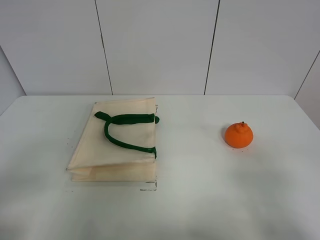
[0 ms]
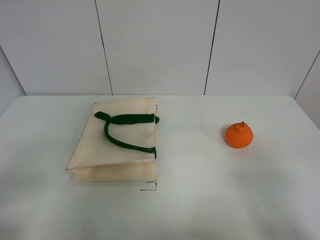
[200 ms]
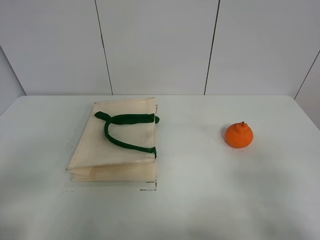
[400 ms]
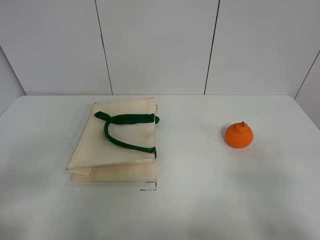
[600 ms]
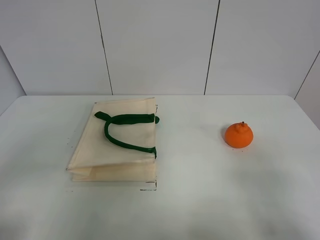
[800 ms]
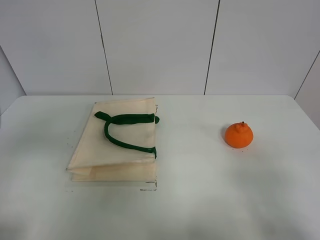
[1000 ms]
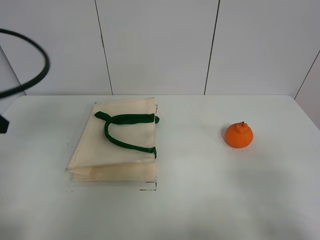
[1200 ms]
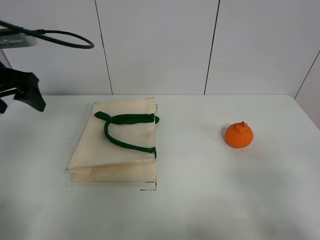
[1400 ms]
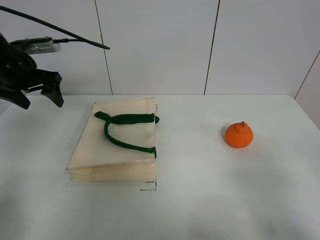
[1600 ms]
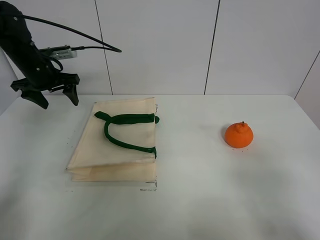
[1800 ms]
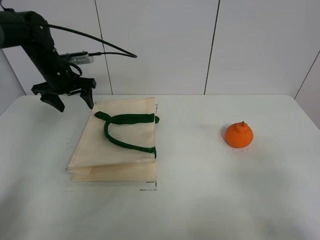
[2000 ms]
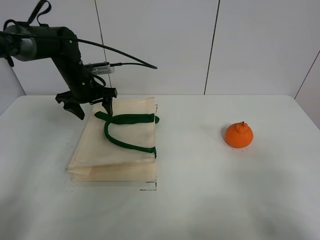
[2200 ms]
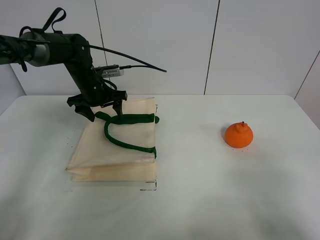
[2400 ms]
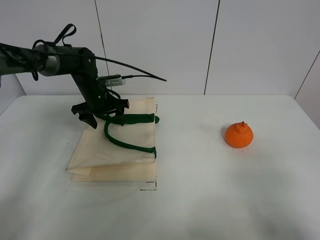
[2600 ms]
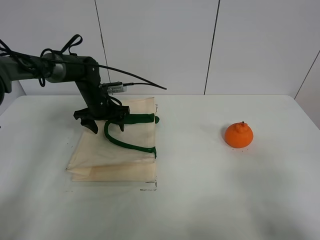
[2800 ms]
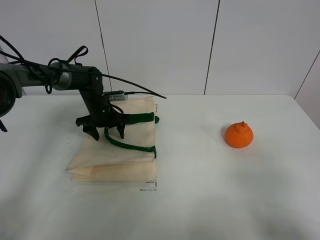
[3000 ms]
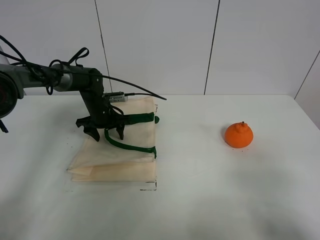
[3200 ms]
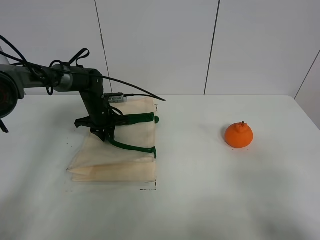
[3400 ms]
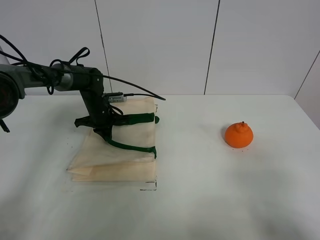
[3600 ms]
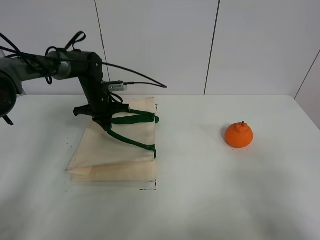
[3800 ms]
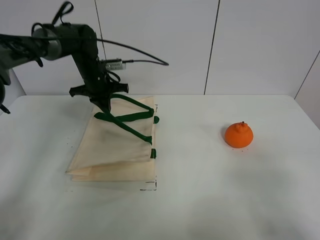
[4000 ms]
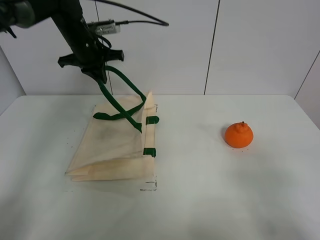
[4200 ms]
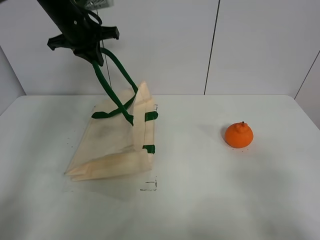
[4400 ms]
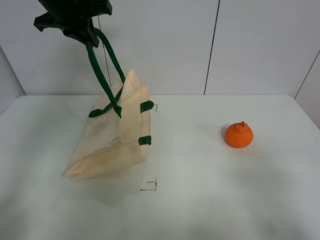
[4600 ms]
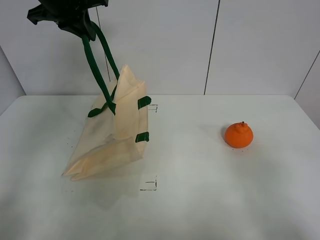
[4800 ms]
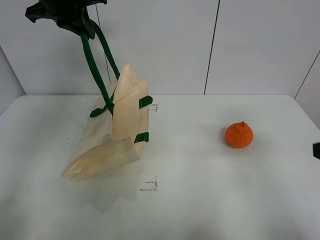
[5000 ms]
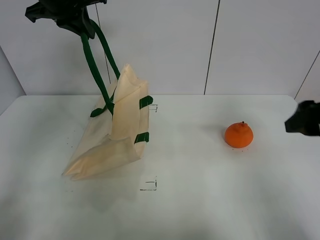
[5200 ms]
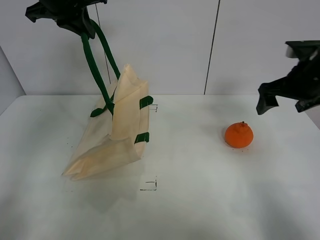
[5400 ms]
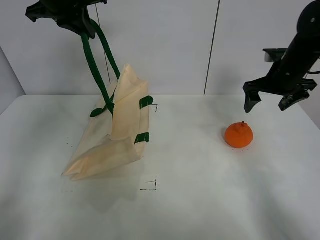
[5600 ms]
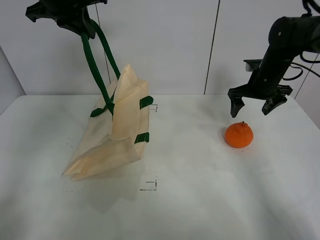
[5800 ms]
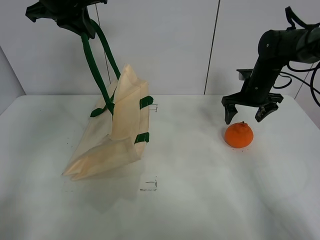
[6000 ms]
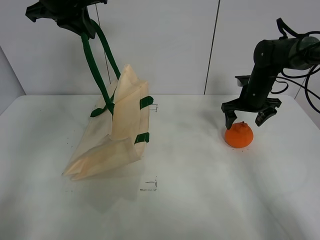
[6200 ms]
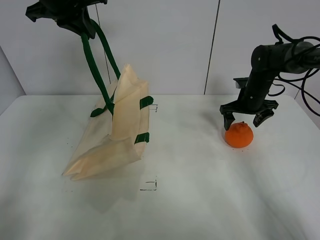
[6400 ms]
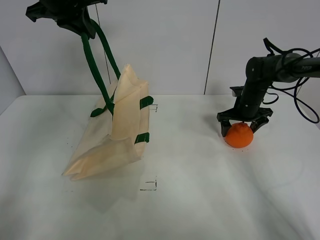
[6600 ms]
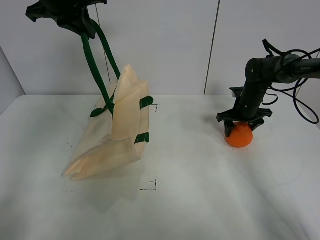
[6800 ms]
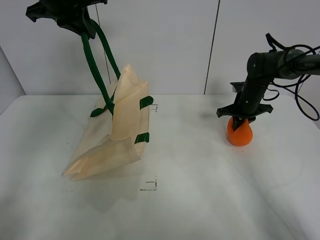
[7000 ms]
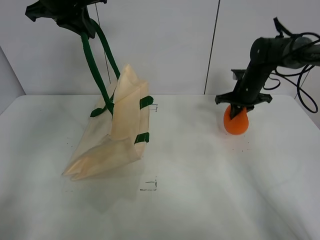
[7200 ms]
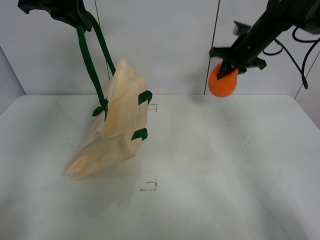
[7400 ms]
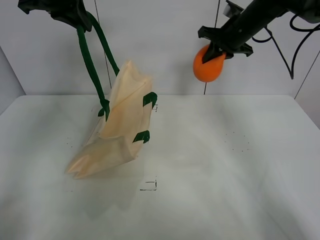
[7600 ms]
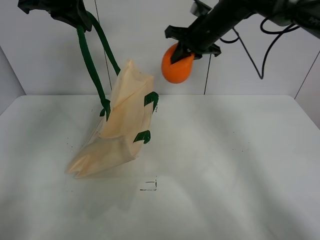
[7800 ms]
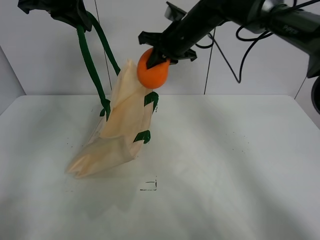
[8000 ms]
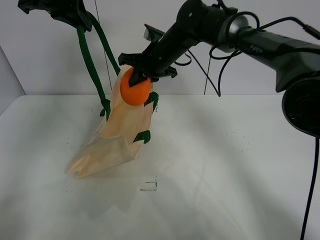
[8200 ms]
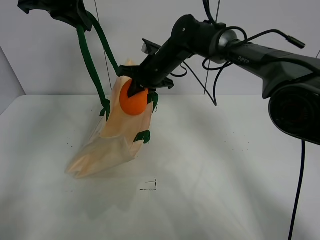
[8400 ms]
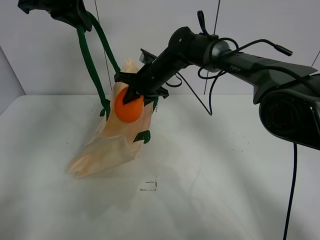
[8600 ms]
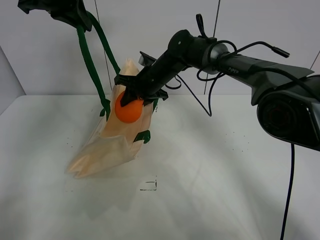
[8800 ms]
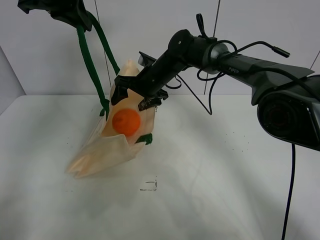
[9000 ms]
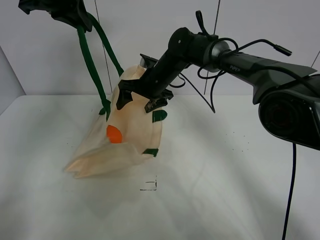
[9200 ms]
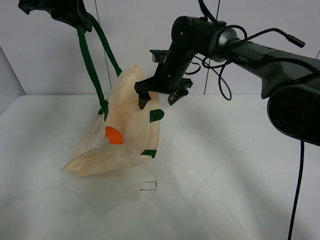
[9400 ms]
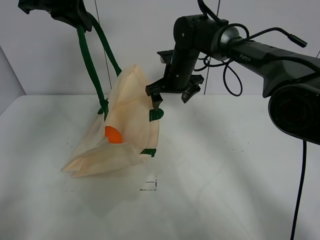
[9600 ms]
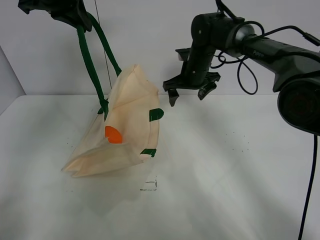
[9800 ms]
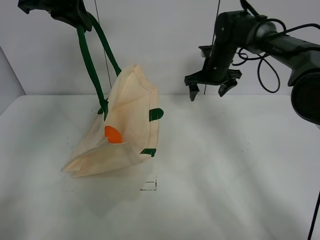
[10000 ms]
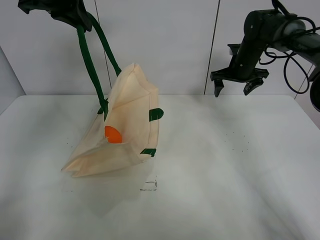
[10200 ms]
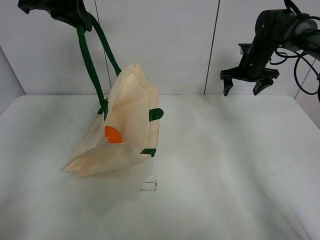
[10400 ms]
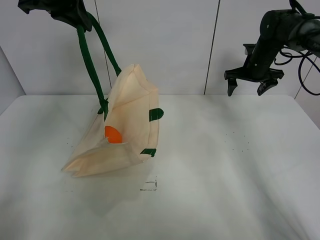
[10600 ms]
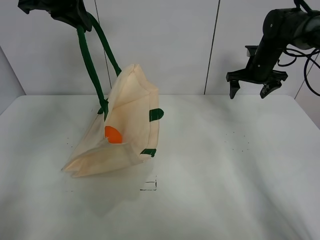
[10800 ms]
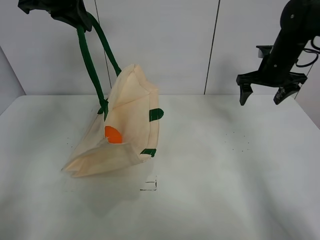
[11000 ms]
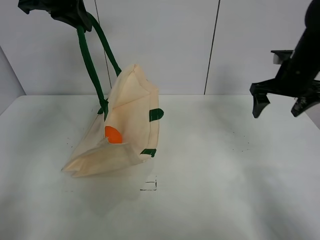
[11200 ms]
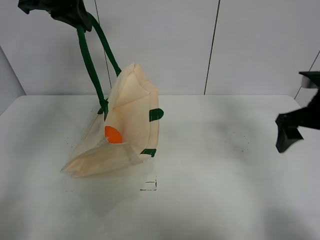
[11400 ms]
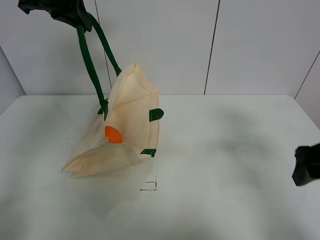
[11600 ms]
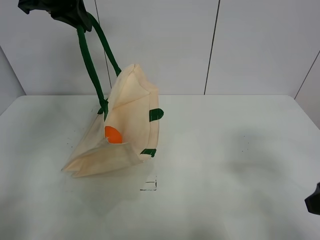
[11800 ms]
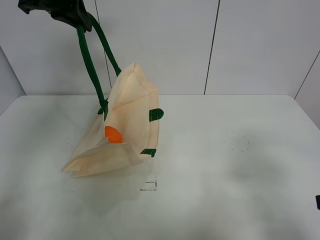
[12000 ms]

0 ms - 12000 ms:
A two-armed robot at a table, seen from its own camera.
Task of the whole recording: open the white linen bag and put the orange in the bag.
Step, 0 ms - 4800 ms: Lift the handbag with left gripper.
Step, 5000 ms - 7000 ms: Grasp the orange with right gripper.
Step, 7200 ms - 9200 ms: Place the orange in the handbag with right gripper.
0 ms - 1600 ms: The left gripper heads forward, covering approximately 40 cm.
1600 ms - 3000 ms: The left gripper travels downward, to the right and forward by about 25 cm.
3000 ms - 4400 ms: The left gripper goes some 25 cm upward, and closes up.
4400 ms - 6000 ms: The right gripper goes approximately 40 cm forward; the left gripper is displaced upward by approximately 5 cm.
6000 ms - 7600 ms: The right gripper shifts approximately 15 cm upward and to the left, and closes its fingers.
7600 ms - 9000 ms: The right gripper travels to the left and downward by about 20 cm, and opens.
9000 ms - 10400 ms: The right gripper shifts about 25 cm to the right.
10400 ms - 12000 ms: The right gripper moves backward, approximately 40 cm.

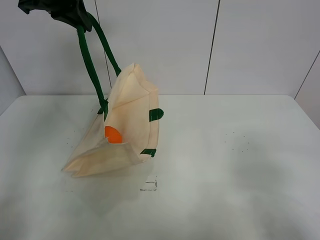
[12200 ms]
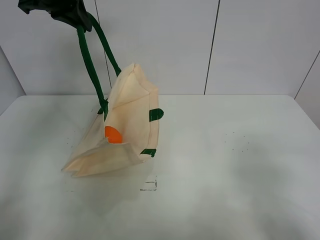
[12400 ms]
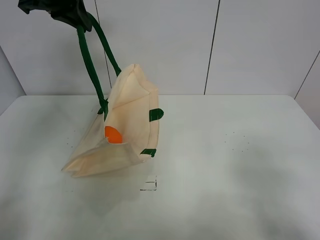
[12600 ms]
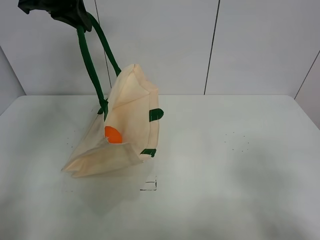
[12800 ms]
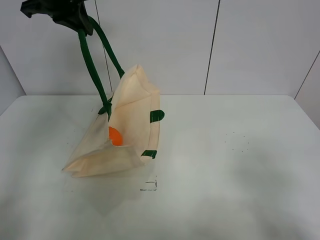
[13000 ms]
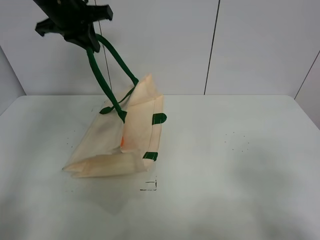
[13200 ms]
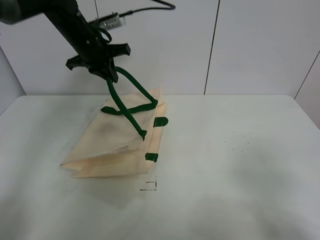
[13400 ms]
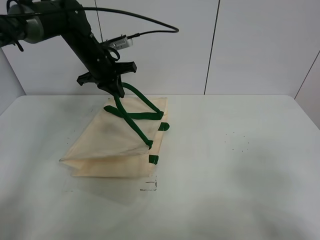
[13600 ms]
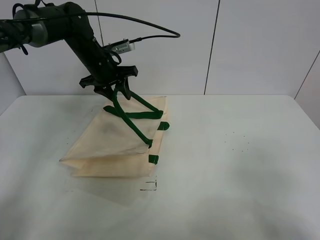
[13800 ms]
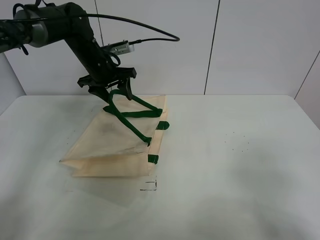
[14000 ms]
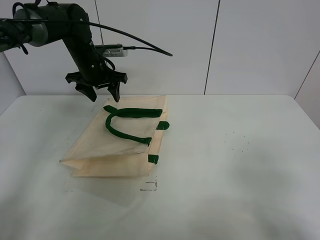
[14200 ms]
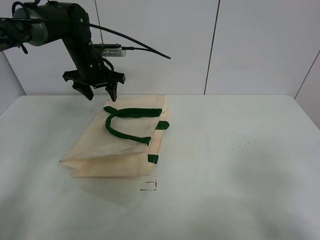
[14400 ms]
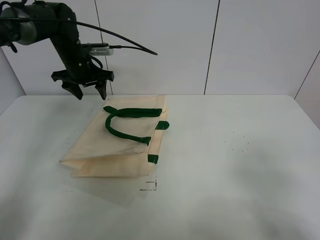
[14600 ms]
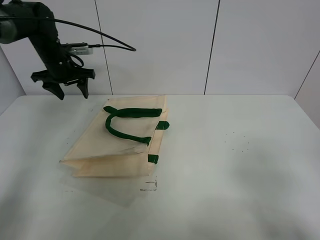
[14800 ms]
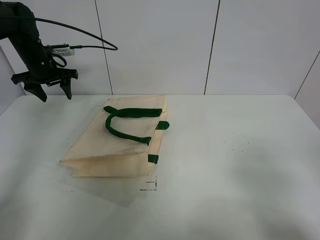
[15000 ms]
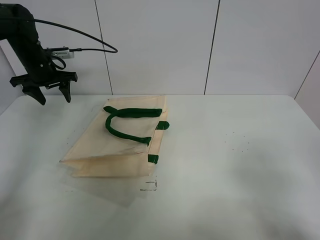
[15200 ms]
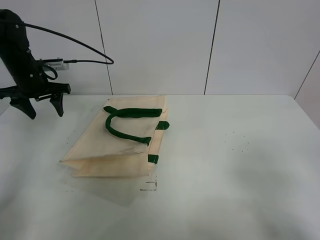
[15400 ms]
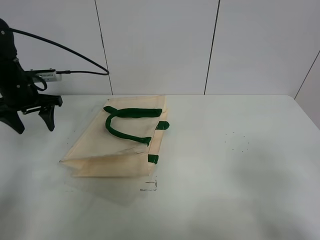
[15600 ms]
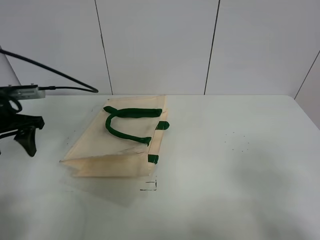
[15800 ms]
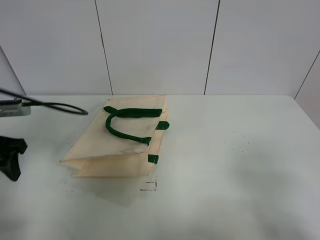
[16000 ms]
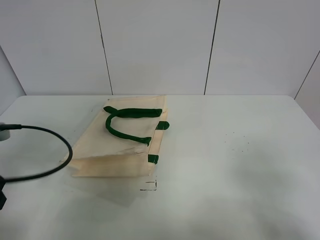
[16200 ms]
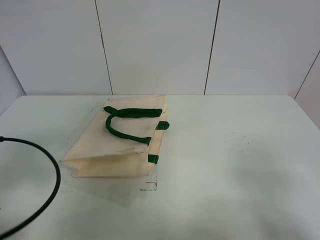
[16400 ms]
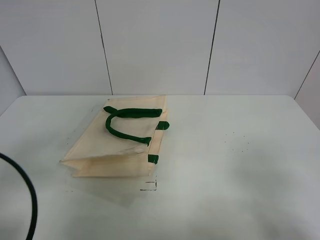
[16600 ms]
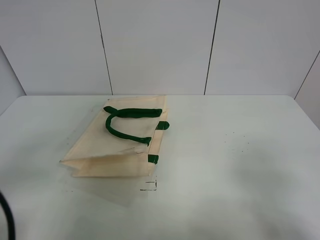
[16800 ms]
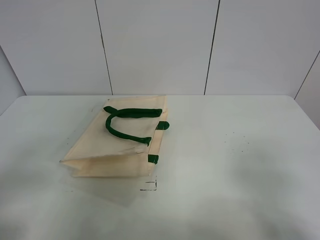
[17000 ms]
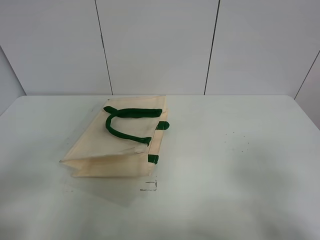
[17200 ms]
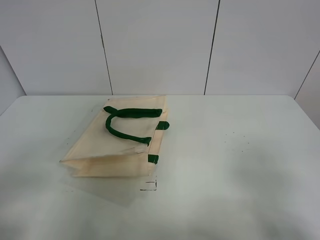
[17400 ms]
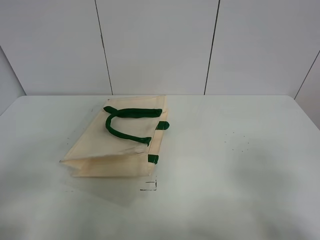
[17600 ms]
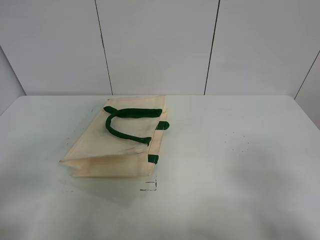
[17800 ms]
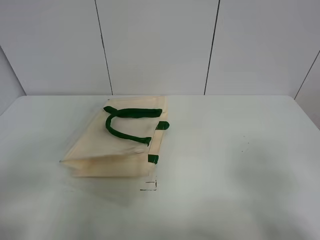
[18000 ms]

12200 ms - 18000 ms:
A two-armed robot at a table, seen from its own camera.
Task of the whole recording: open the white linen bag and put the orange in the bag.
12200 ms - 13600 ms: The left gripper is displaced downward by approximately 20 cm.
13600 ms - 15000 ms: The left gripper moves to the left, approximately 15 cm, and opens up.
15000 ms - 16600 ms: The left gripper moves backward, roughly 40 cm.
16600 ms - 18000 ms: The left gripper shifts some 5 cm backward.
